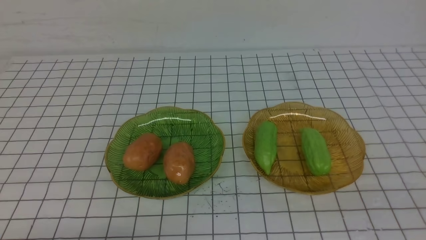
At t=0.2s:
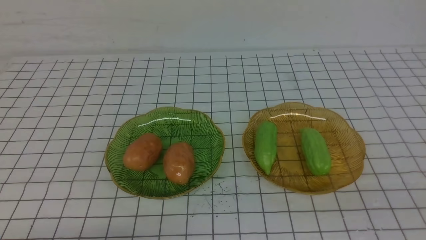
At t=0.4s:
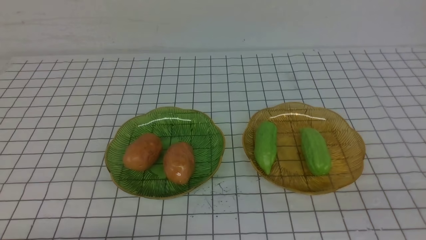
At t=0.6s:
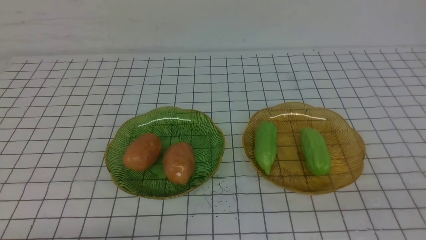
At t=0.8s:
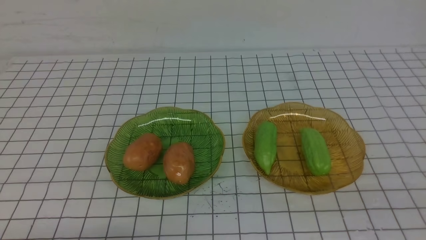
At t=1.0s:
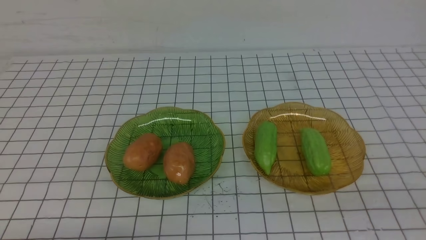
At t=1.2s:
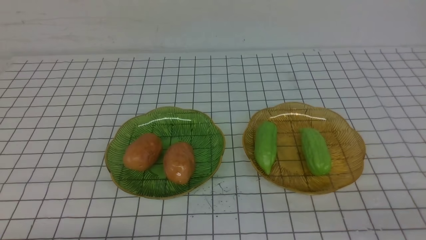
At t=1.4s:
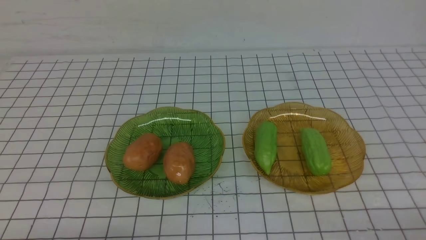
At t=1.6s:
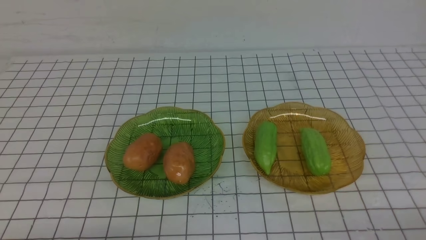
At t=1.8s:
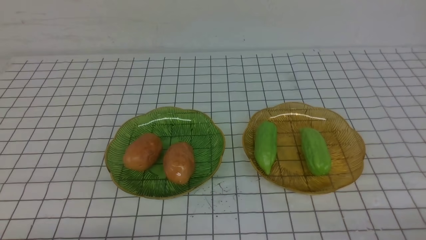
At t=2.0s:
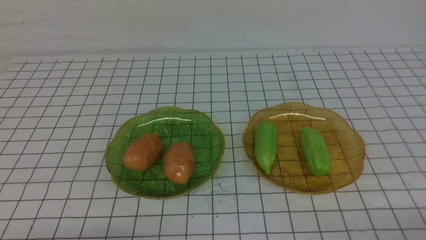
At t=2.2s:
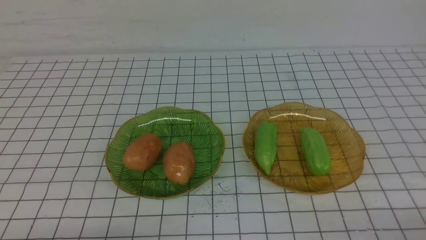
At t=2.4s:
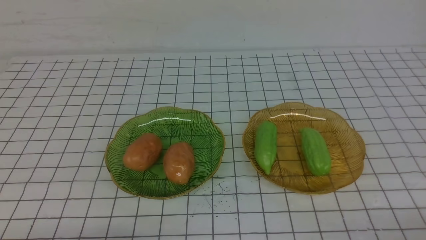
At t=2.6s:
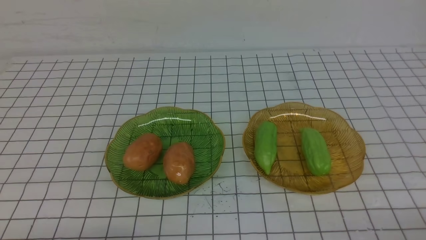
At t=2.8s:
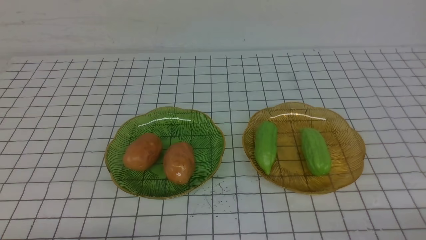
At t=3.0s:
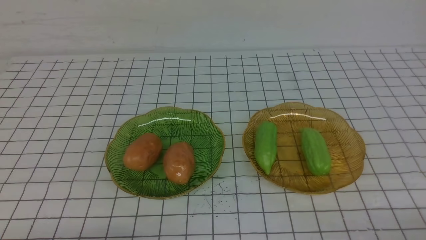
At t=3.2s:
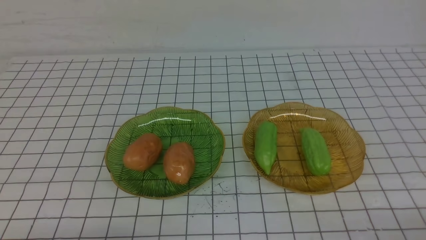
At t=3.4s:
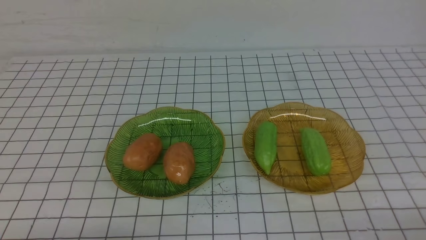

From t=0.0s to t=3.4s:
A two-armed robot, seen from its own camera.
From t=1.6s to t=3.4s: Both grippers stay about where they are.
